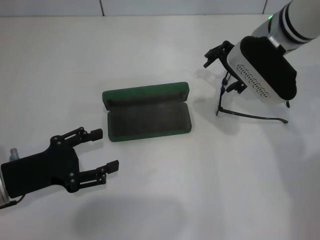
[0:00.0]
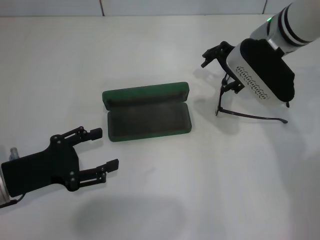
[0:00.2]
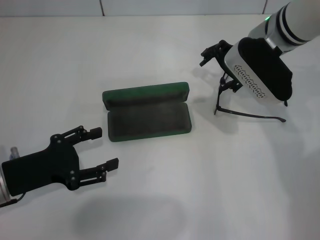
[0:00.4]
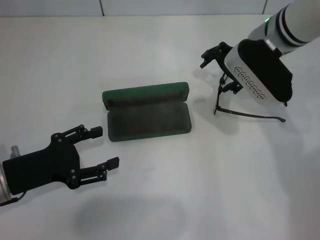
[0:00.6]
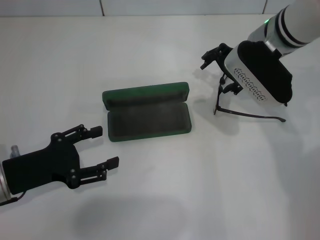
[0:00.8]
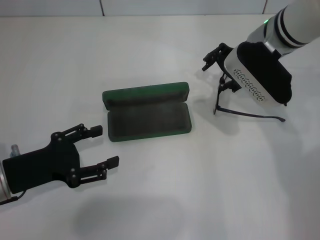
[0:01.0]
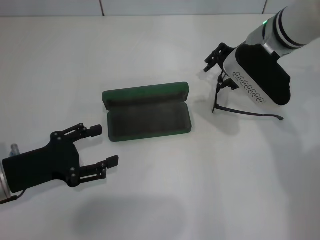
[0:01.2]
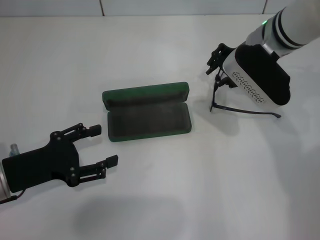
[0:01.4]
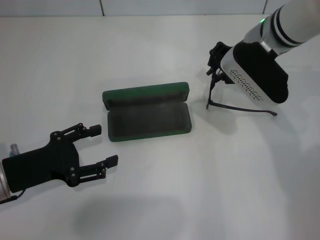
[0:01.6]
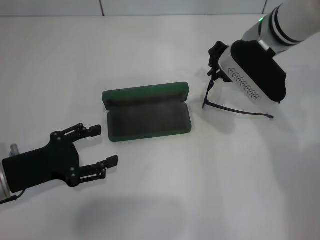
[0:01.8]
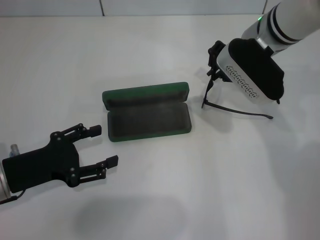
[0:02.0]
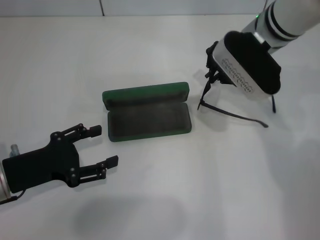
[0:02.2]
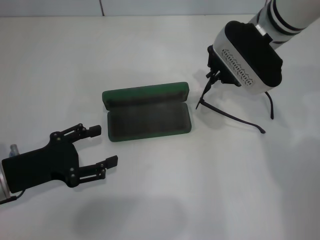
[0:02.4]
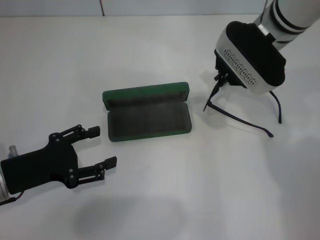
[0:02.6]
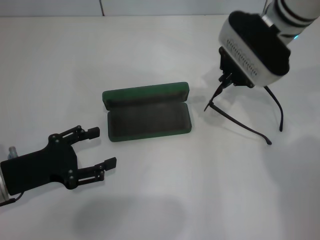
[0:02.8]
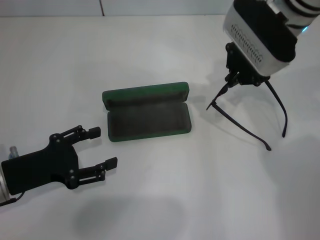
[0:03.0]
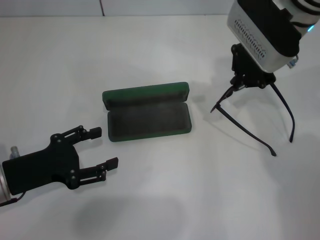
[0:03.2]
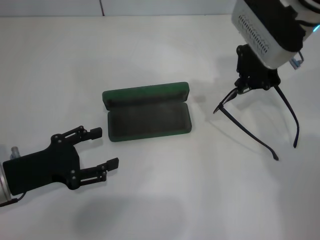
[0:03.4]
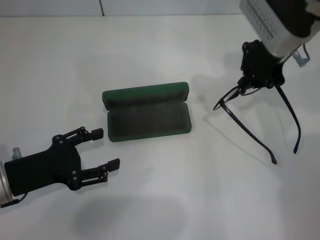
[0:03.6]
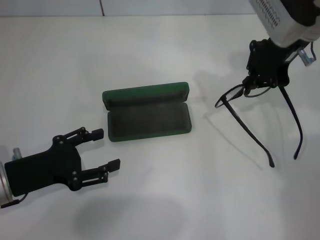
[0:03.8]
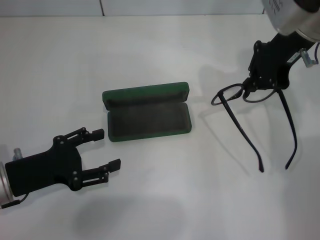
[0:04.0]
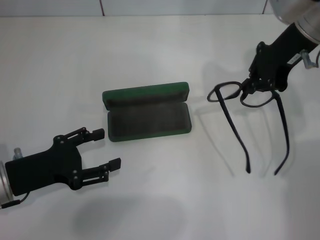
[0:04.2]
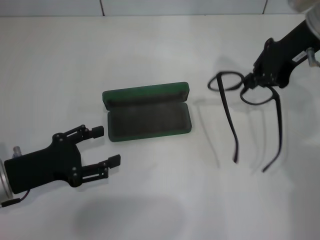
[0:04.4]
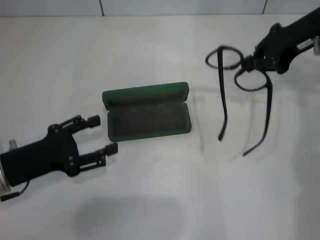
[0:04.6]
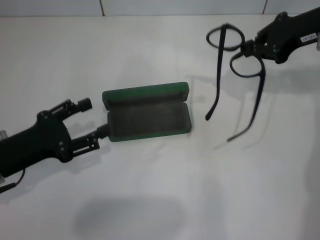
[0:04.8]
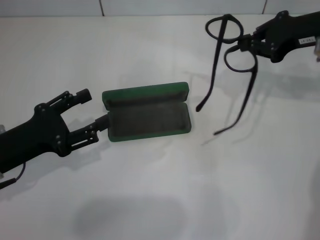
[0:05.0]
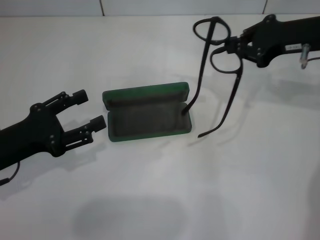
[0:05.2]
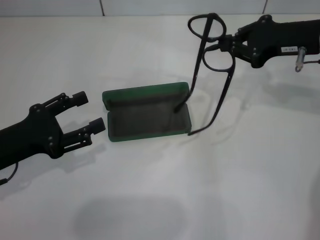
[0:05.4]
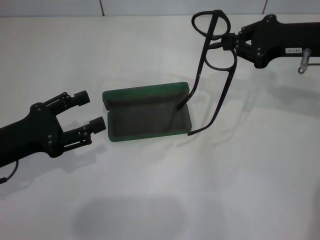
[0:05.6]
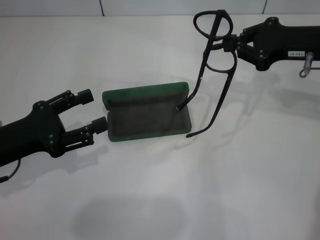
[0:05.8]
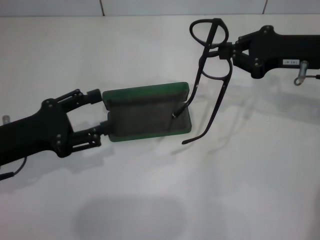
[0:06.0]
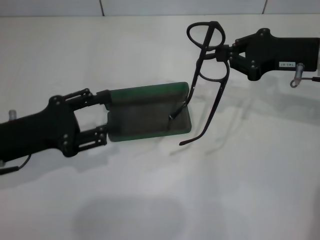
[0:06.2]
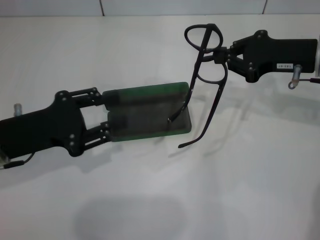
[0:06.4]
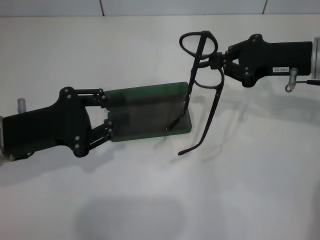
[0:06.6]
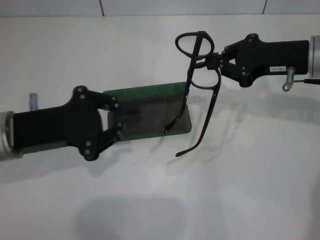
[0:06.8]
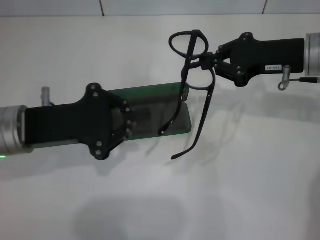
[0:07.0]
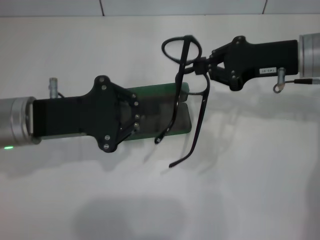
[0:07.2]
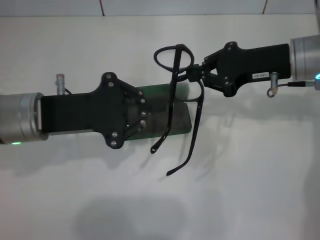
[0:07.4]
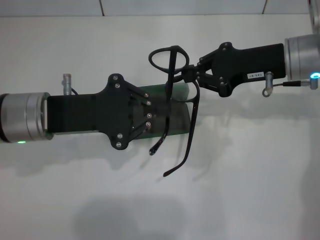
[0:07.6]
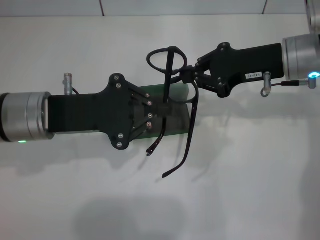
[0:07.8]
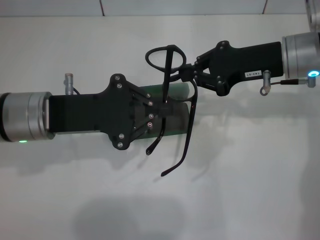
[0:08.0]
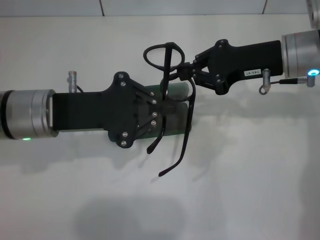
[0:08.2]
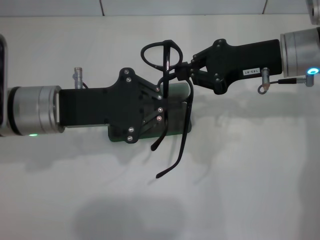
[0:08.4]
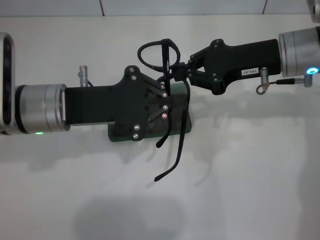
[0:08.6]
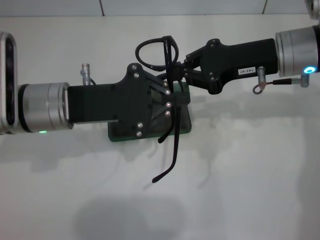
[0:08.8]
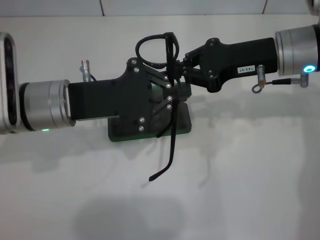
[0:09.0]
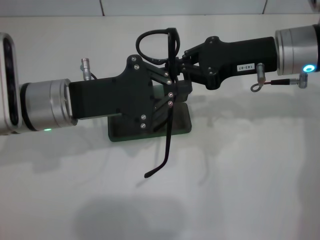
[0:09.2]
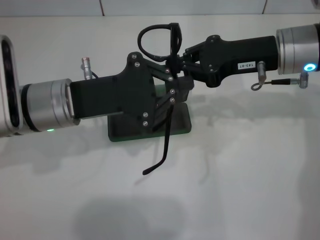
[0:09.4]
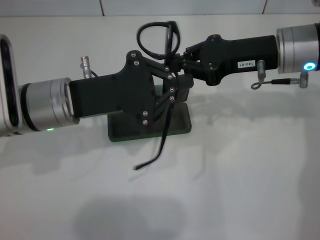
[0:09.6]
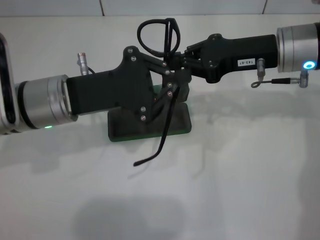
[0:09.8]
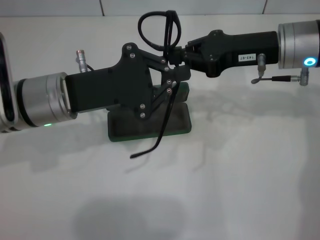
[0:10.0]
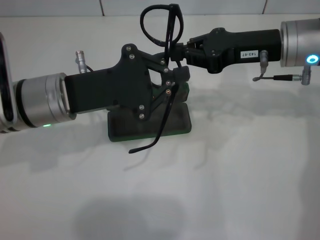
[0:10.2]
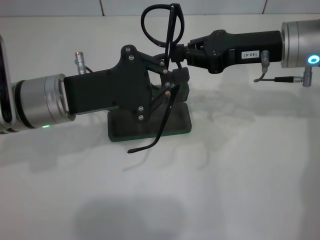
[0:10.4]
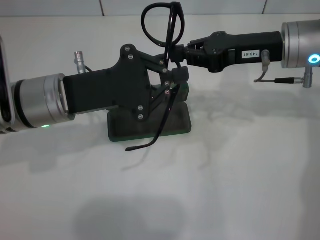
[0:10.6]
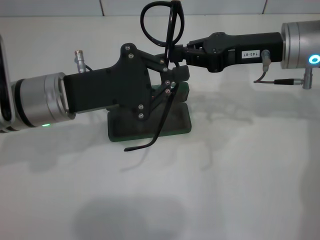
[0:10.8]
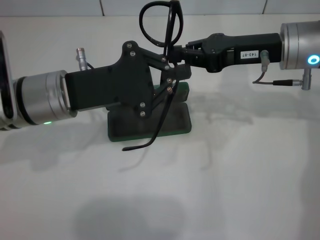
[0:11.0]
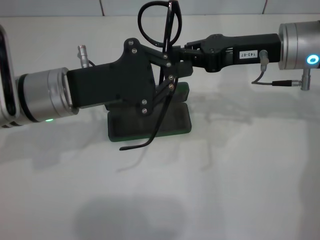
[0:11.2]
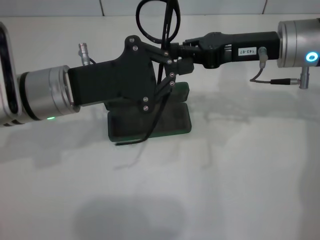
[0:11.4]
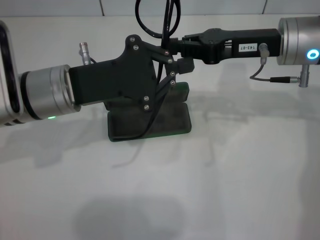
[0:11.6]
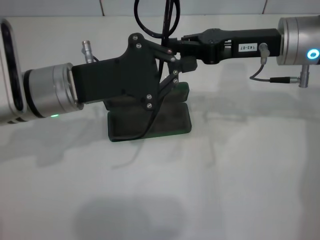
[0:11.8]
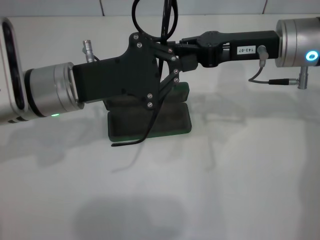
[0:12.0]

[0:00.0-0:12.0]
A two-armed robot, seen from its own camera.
0:00.0 to 0:01.6: The right gripper closes its fingers.
0:01.6 to 0:03.0: The right gripper closes its fingers.
0:03.0 to 0:04.4: The right gripper is displaced to the right by approximately 5 cm.
0:04.4 to 0:06.0: The right gripper moves downward, some 5 cm.
0:06.0 to 0:07.6: The left gripper is displaced to the right and forward by some 10 cm, and closes, while the right gripper is displaced to the left by approximately 5 cm.
0:07.6 to 0:10.4: The grippers move only a little.
0:10.4 to 0:12.0: The grippers move only a little.

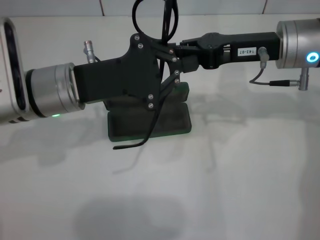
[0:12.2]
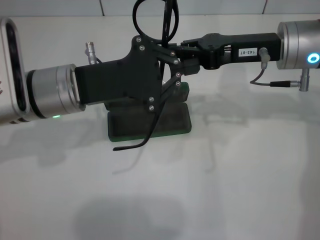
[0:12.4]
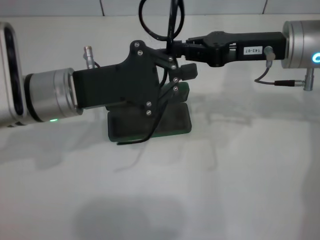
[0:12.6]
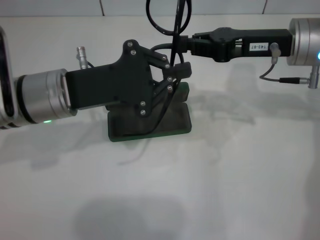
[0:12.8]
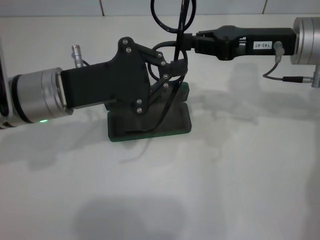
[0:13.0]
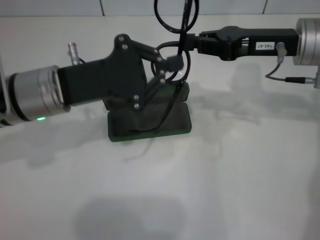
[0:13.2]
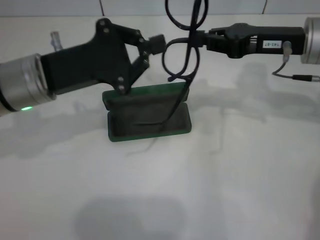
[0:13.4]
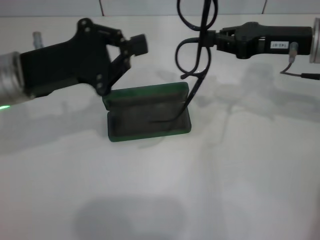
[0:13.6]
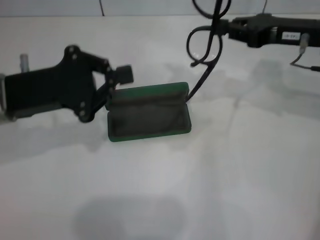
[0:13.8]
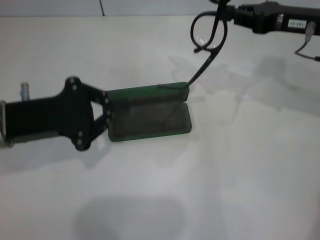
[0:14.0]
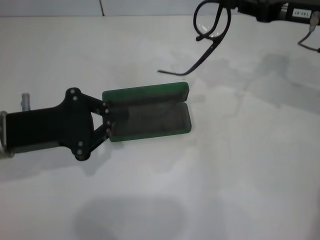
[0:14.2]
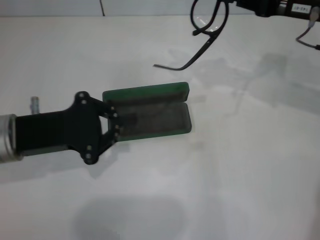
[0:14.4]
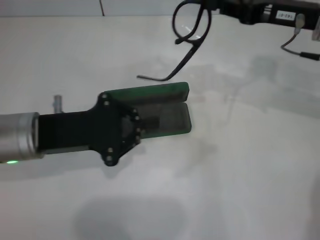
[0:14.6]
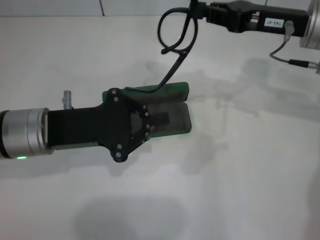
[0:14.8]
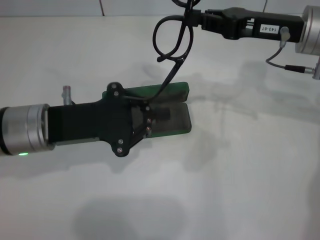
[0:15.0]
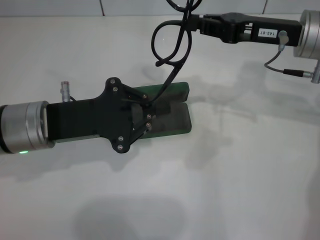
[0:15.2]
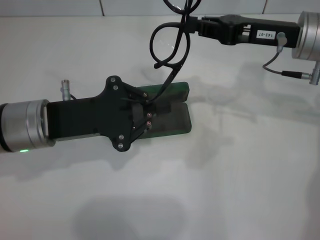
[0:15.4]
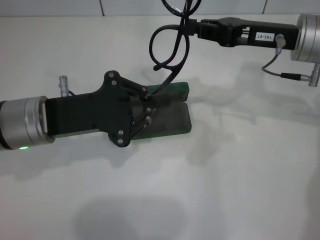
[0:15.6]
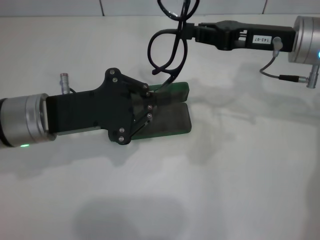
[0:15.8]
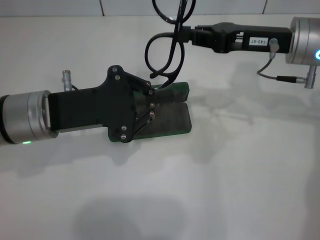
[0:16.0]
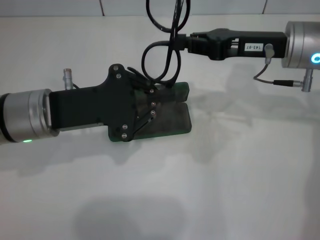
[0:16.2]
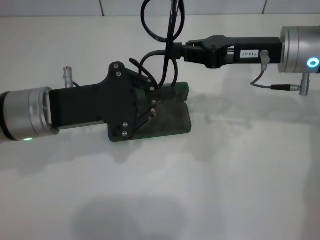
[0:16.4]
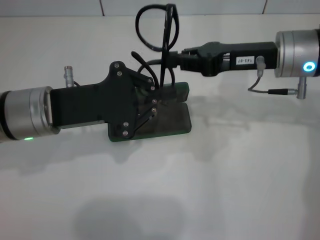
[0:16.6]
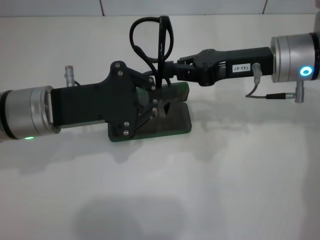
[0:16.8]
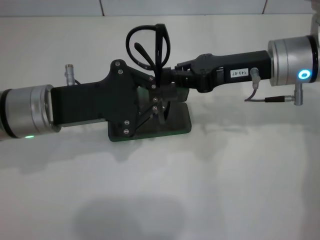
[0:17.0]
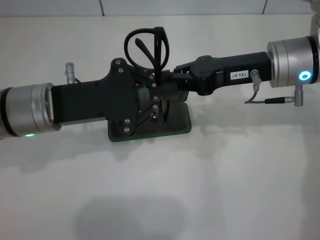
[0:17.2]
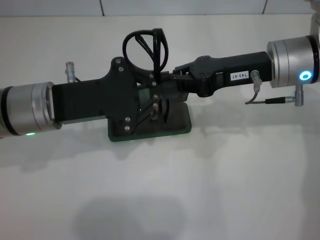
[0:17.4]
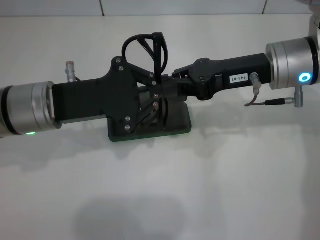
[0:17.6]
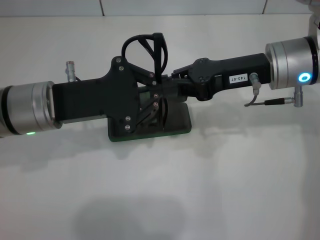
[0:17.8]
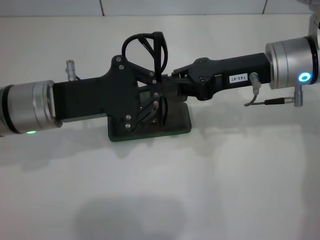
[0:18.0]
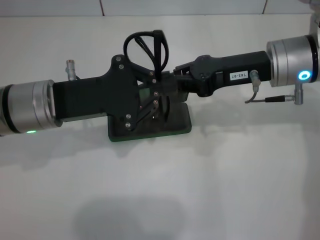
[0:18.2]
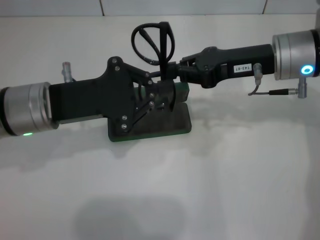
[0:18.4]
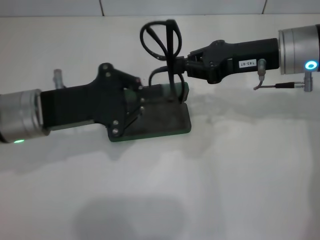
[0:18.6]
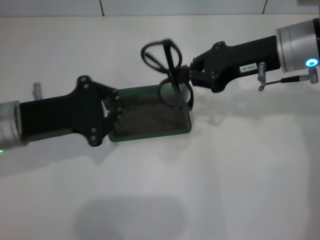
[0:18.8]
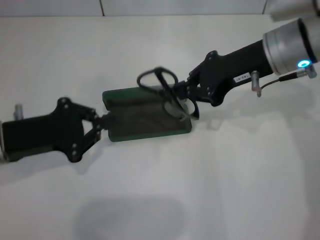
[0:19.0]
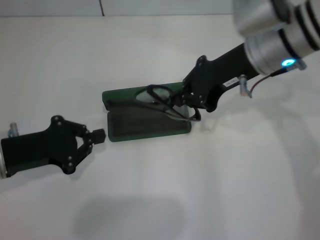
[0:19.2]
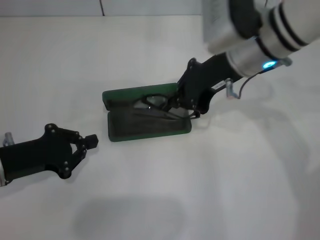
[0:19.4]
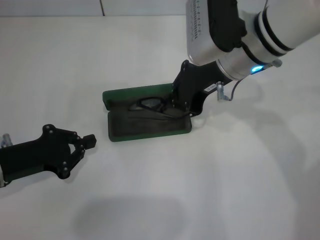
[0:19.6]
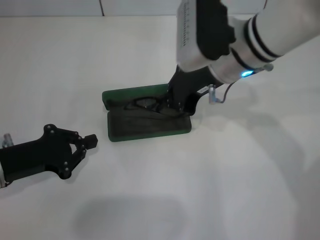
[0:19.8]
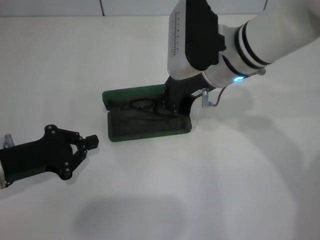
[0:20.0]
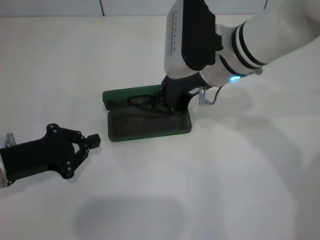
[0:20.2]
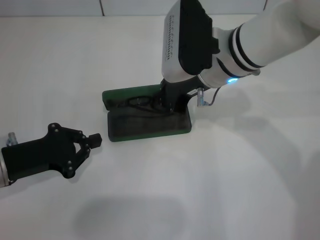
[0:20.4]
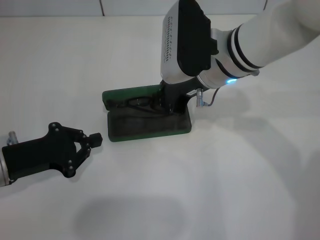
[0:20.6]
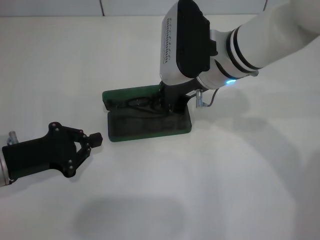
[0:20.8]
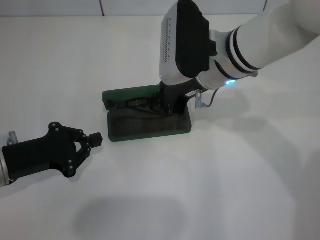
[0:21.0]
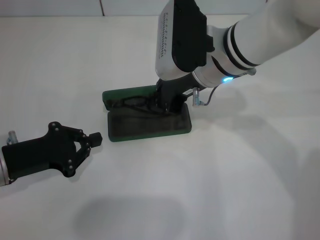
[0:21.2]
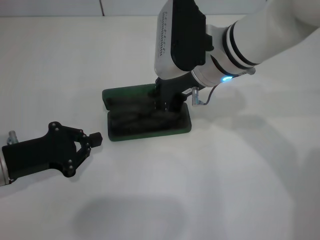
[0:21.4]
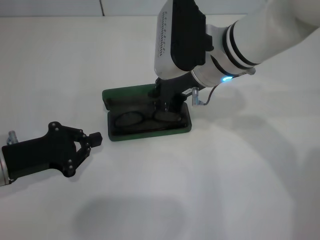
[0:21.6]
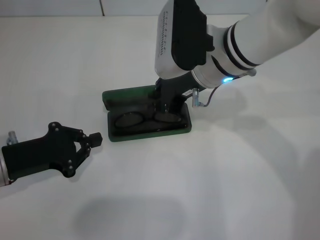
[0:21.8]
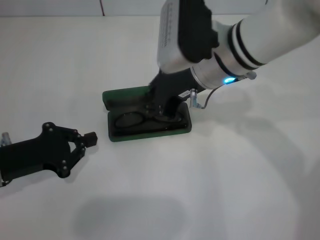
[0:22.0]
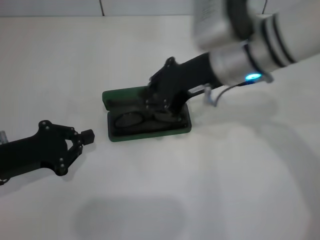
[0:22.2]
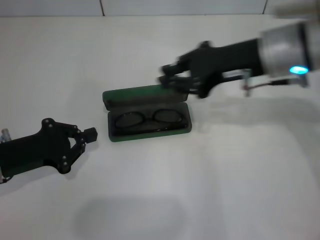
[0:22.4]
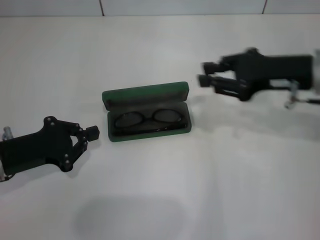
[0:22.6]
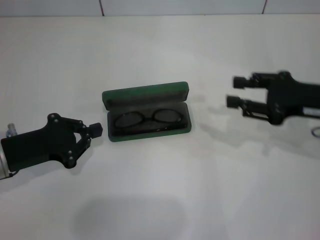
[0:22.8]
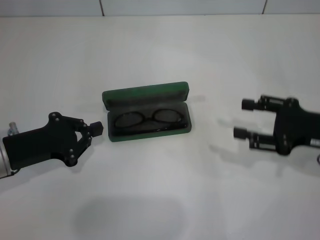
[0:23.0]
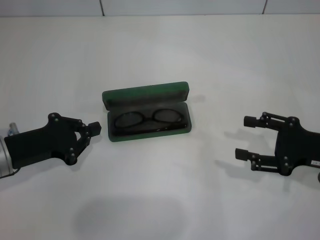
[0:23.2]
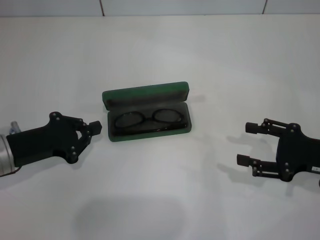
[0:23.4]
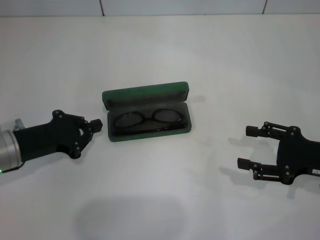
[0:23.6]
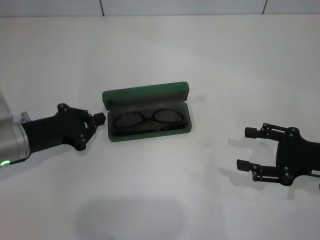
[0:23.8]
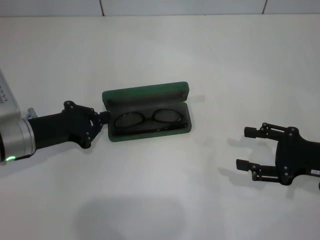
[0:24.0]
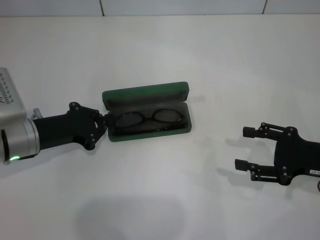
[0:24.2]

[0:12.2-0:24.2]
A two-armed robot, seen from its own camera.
Step, 0:12.2 to 0:18.0: Lift the glasses with your right hand.
Step, 0:18.2 to 0:21.6: Put the glasses into the case with your right hand.
0:12.2 to 0:13.8: The right gripper travels to the right by approximately 5 cm. The left gripper shifts approximately 10 cm to the left.
0:13.8 to 0:15.2: The left gripper changes place by some 5 cm.
0:16.6 to 0:18.2: The grippers make only small movements.
0:18.2 to 0:19.8: The right gripper moves to the left, roughly 10 cm, while the left gripper travels to the left, downward and backward by approximately 15 cm.
0:19.8 to 0:21.2: The grippers make only small movements.
0:21.2 to 0:22.6: The right gripper goes some 15 cm to the right.
0:22.6 to 0:24.2: The left gripper travels forward by approximately 5 cm; the right gripper shifts roughly 15 cm downward, backward and to the right, and opens up.
